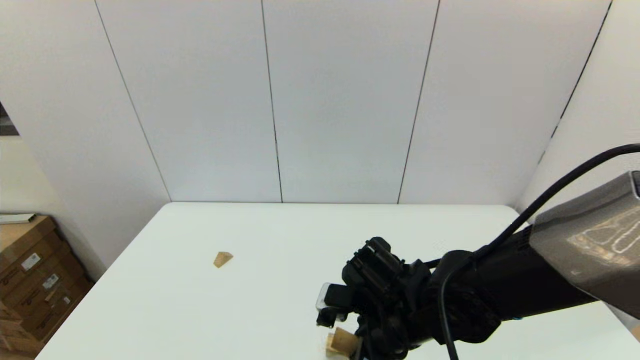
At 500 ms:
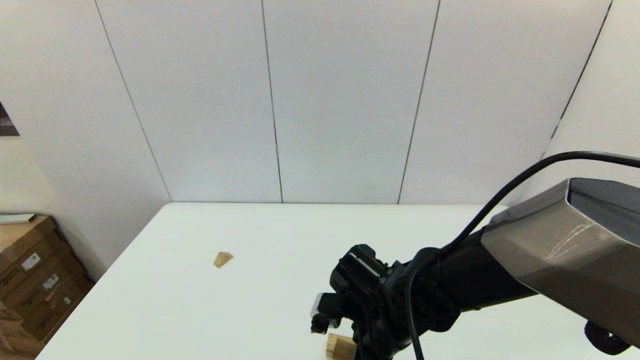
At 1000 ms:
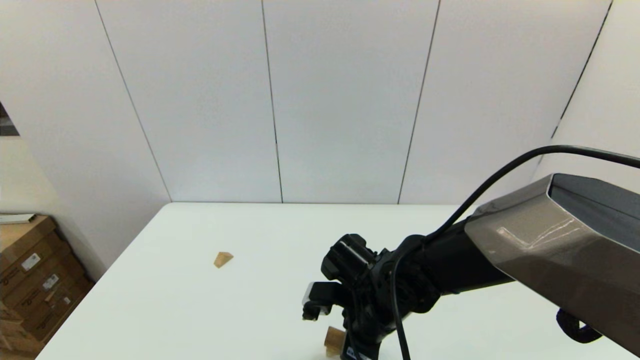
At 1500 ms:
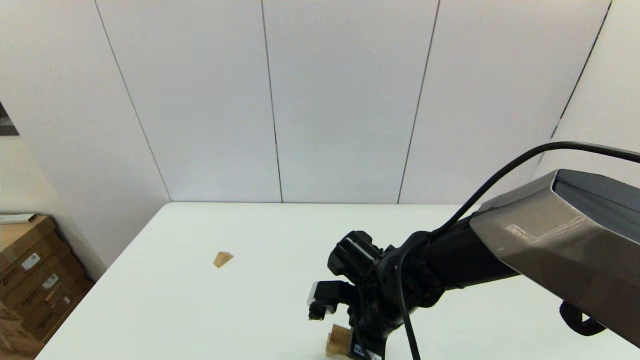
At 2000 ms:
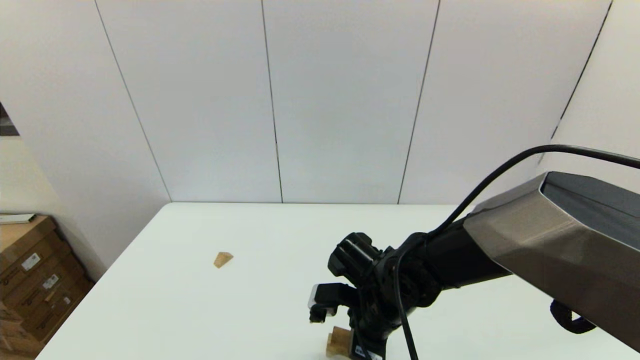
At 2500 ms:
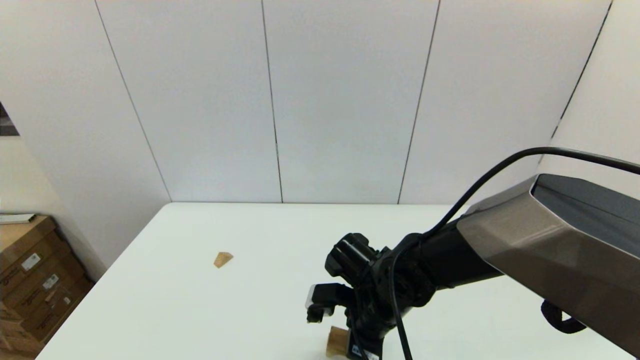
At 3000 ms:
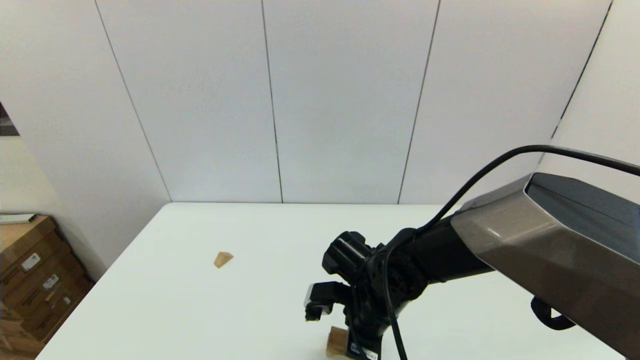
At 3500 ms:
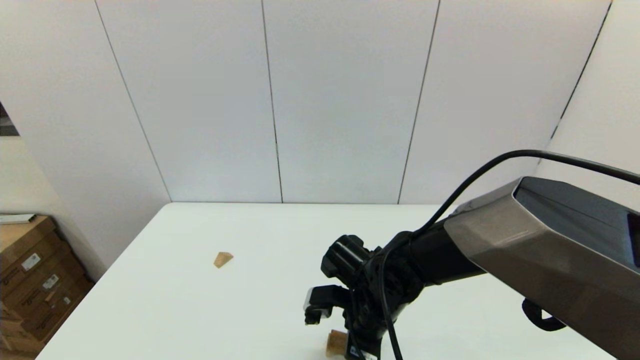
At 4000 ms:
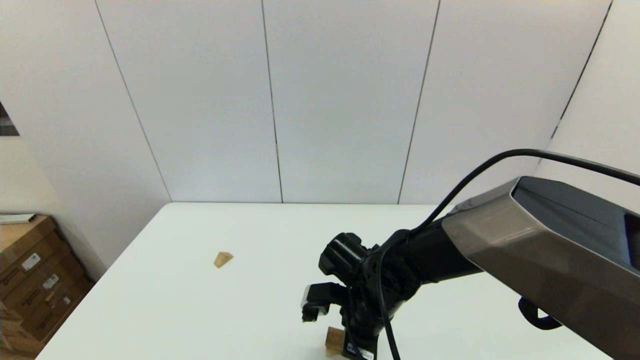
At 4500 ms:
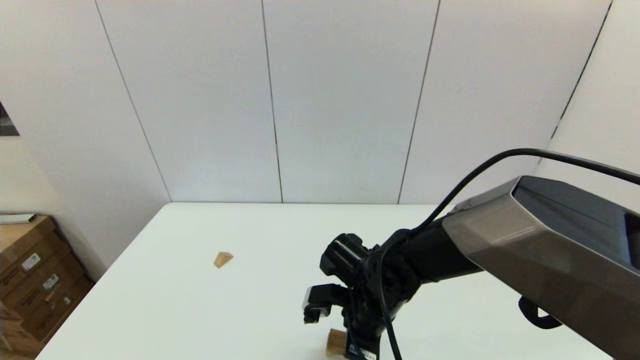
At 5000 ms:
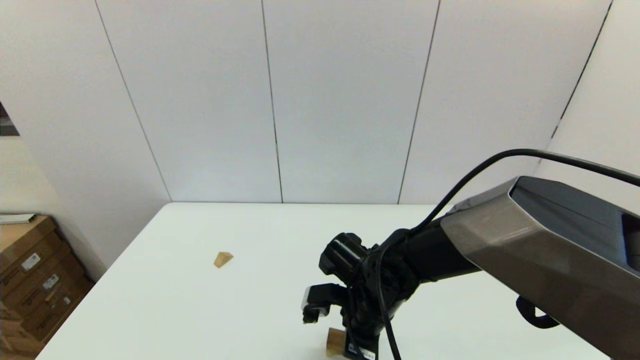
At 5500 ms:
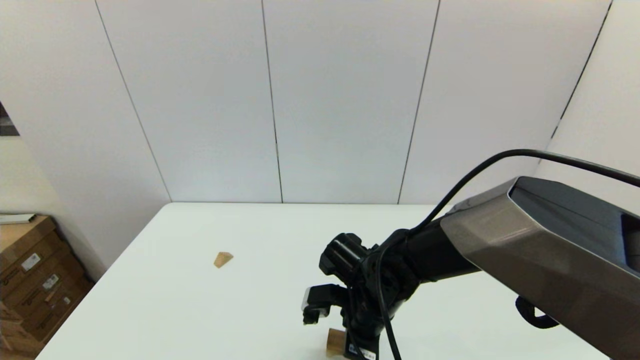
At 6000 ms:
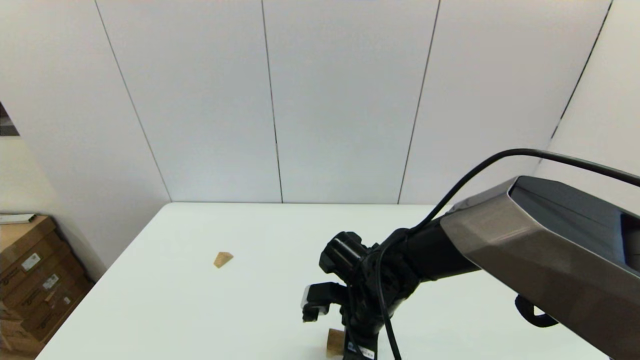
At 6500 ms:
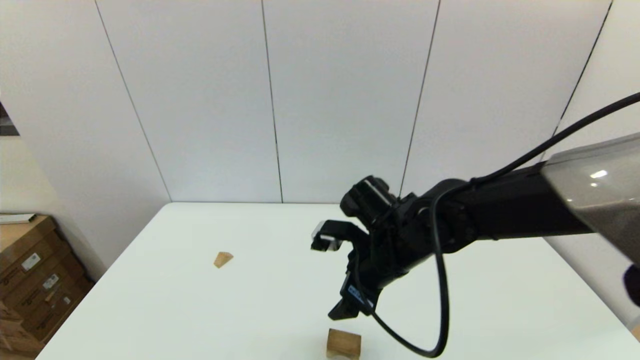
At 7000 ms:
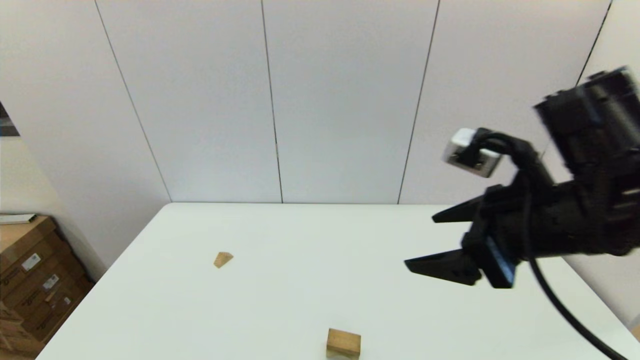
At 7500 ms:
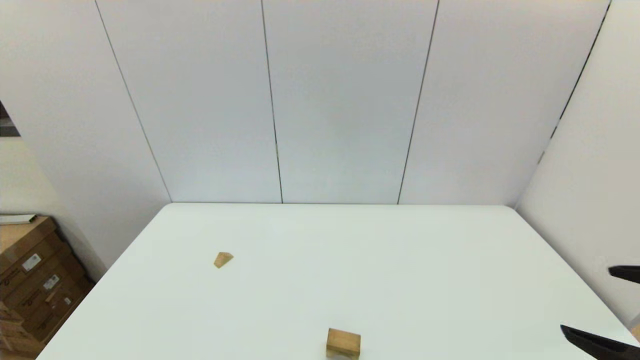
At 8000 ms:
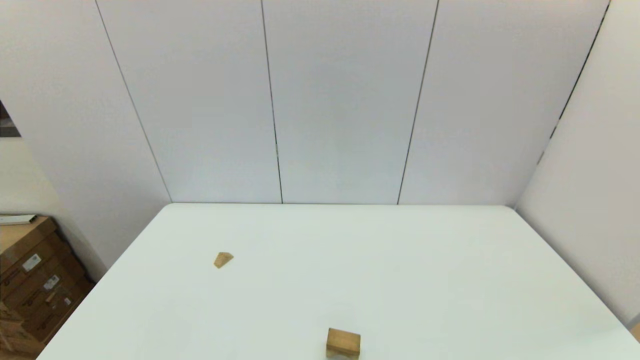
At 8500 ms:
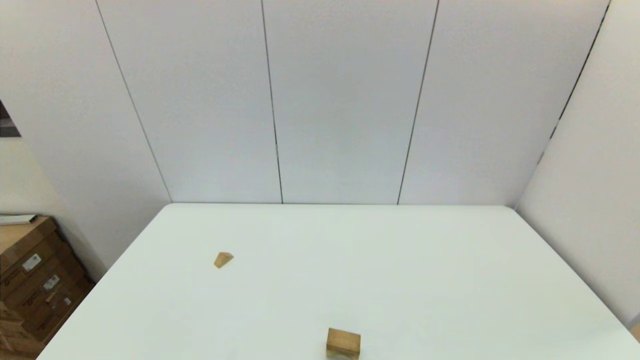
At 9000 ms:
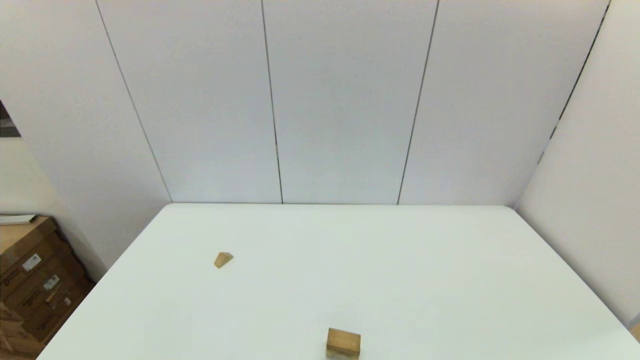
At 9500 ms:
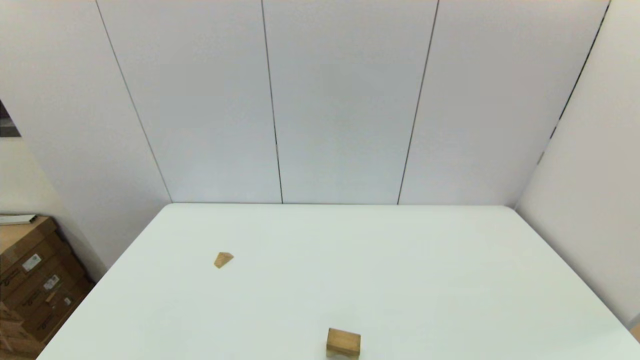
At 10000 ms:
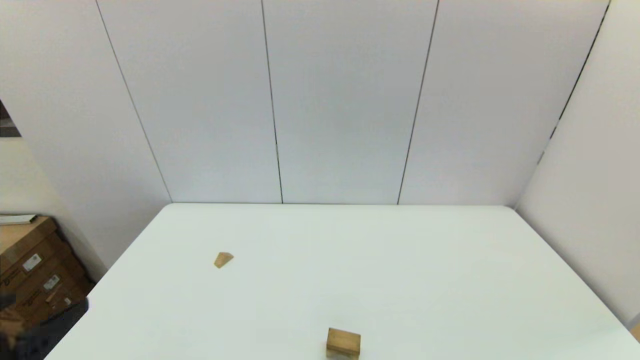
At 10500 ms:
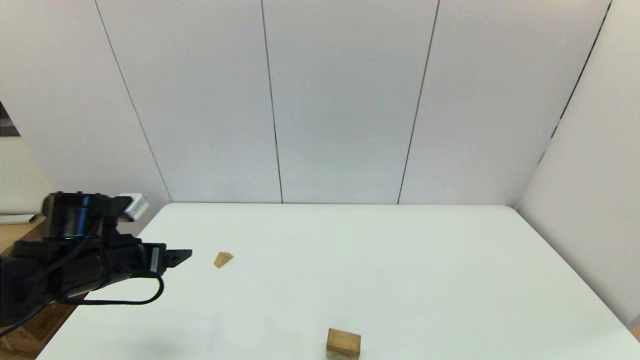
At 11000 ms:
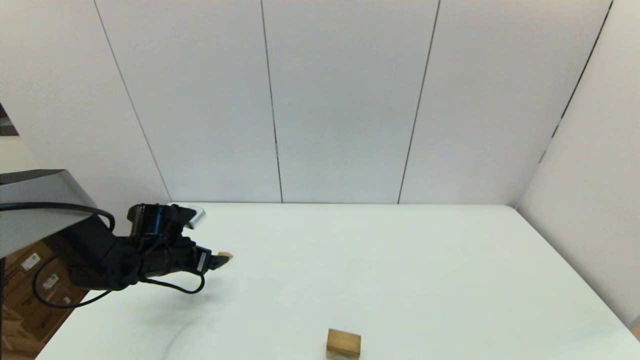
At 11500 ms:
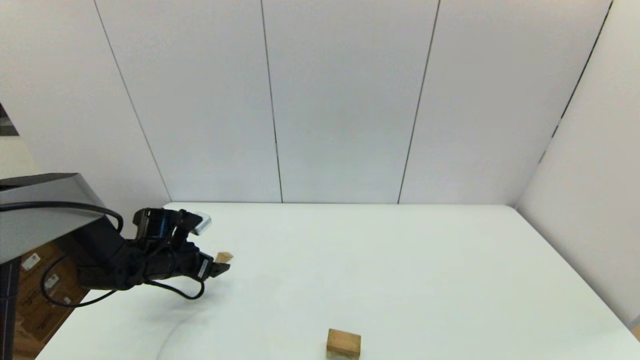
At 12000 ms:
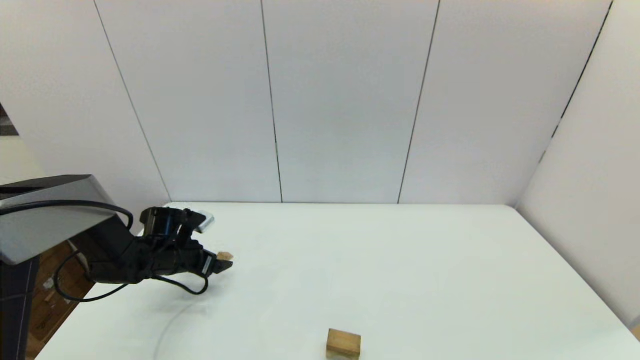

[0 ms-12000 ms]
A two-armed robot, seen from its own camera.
Task of the whole recording: place the arched building blocks in the center of the table, set up the rectangular building blocks, and then set up the triangular building blocks.
Step, 0 ms to 5500 ms: Place the box-shaped block onto the arch-shaped block with the right gripper.
0 ms to 4000 ms: The grippers move only a little.
4000 ms to 6000 ms: The right gripper opens.
6000 ms to 8000 ms: The right gripper travels backward, to the right and upward by some 40 cm, and opens its fingers.
8000 ms to 10000 ms: The left gripper travels upward and forward by some 15 cm.
10000 ms to 12000 ms: The left gripper shifts about 35 cm forward and downward.

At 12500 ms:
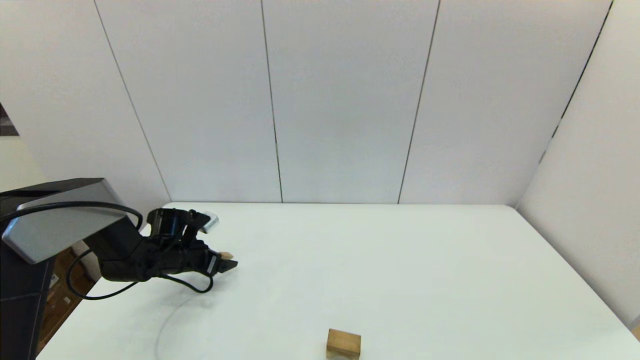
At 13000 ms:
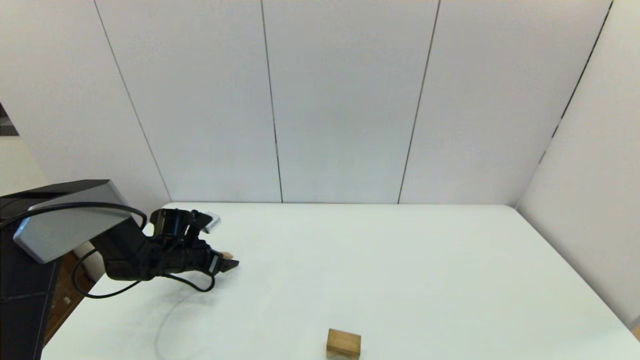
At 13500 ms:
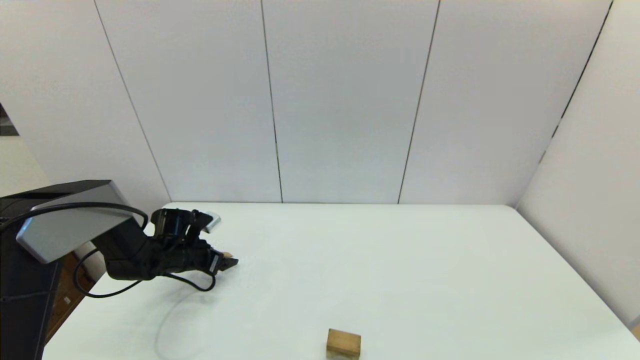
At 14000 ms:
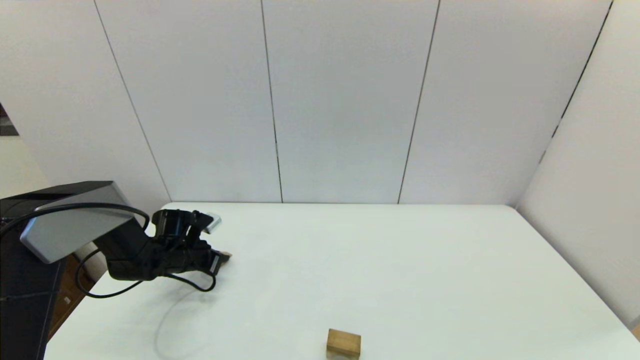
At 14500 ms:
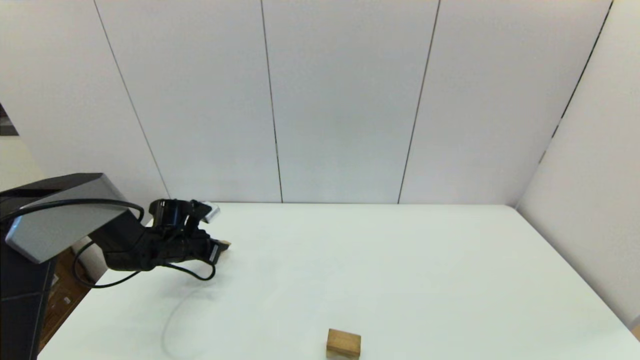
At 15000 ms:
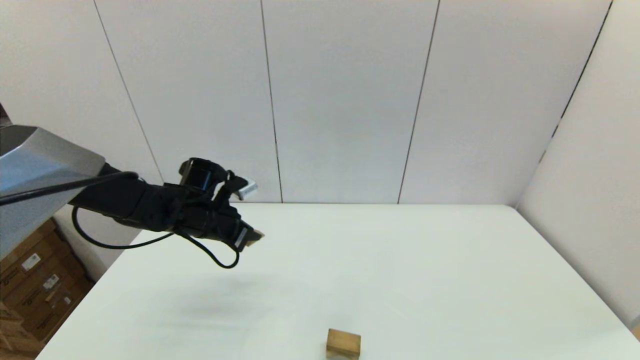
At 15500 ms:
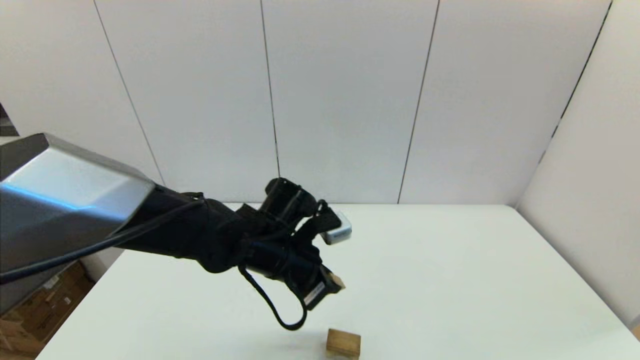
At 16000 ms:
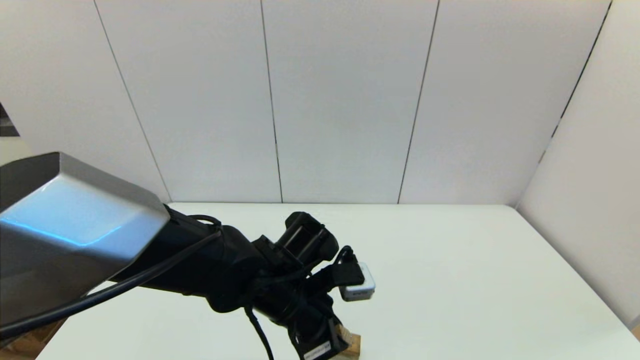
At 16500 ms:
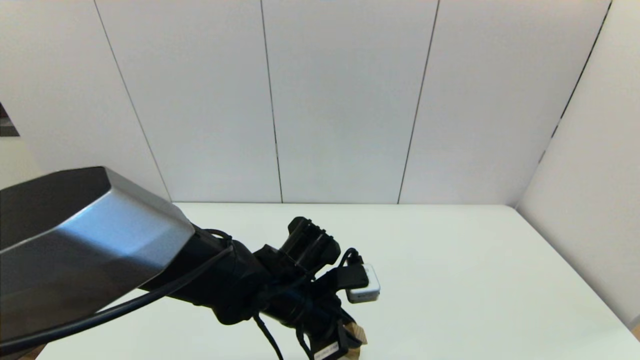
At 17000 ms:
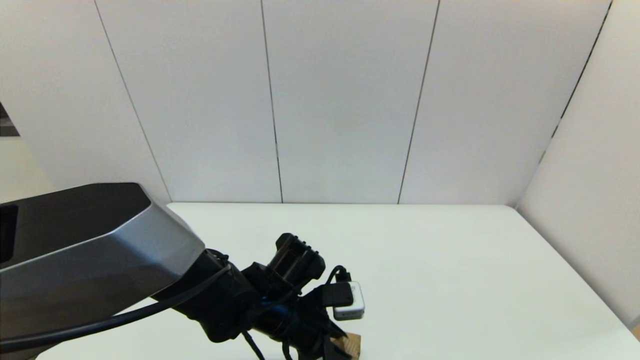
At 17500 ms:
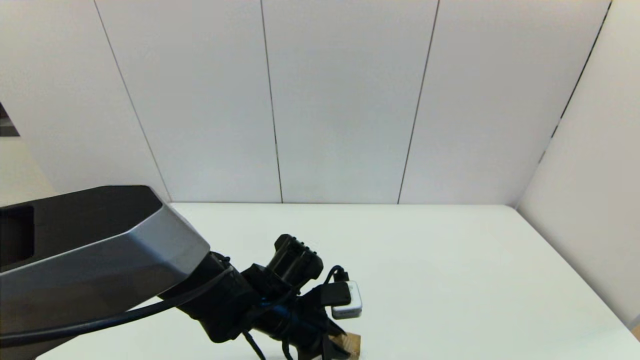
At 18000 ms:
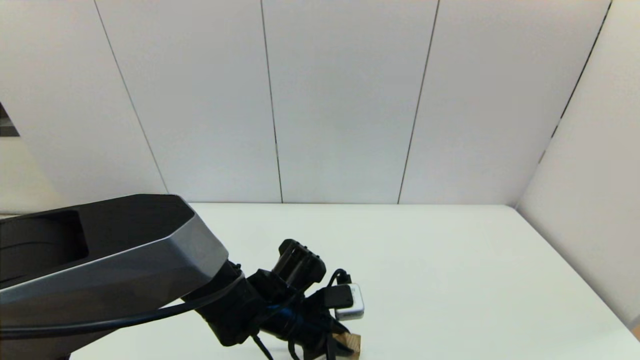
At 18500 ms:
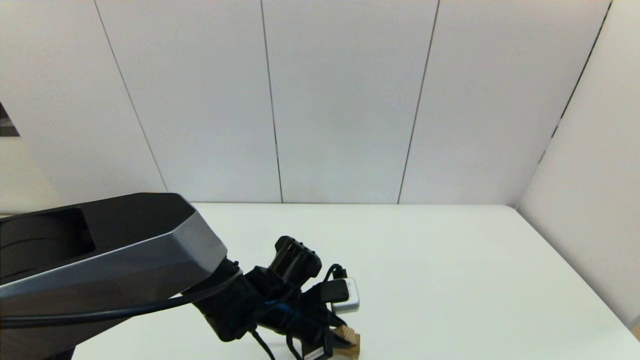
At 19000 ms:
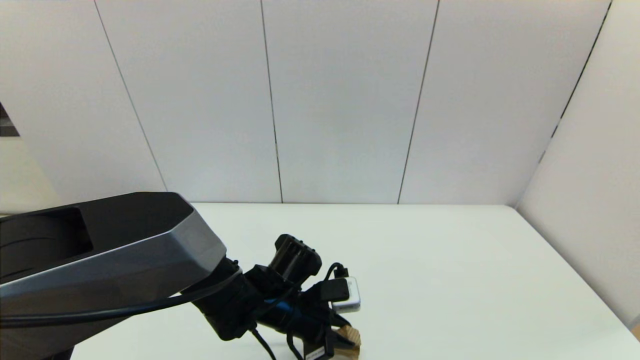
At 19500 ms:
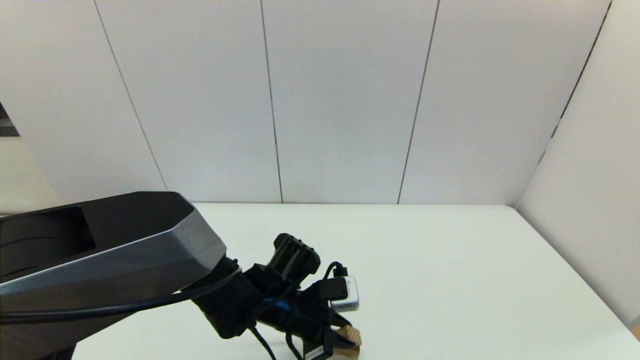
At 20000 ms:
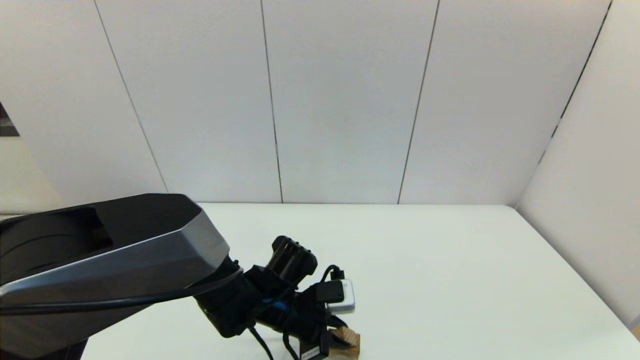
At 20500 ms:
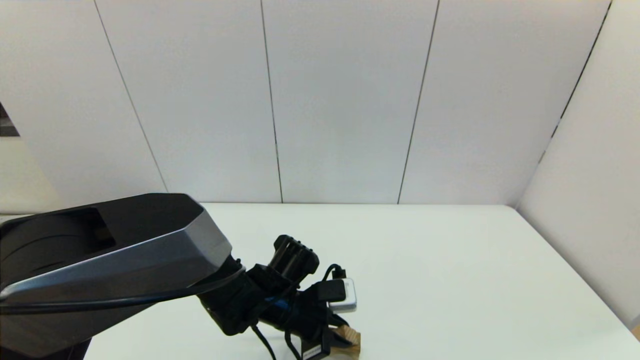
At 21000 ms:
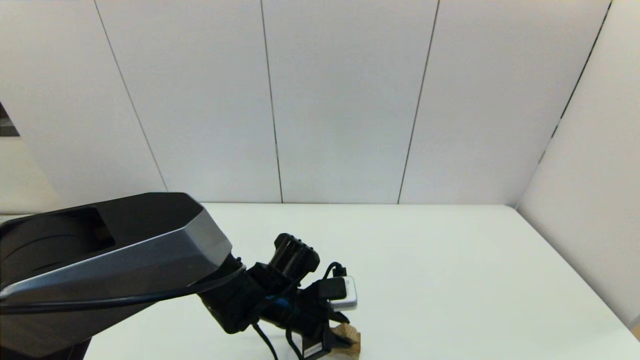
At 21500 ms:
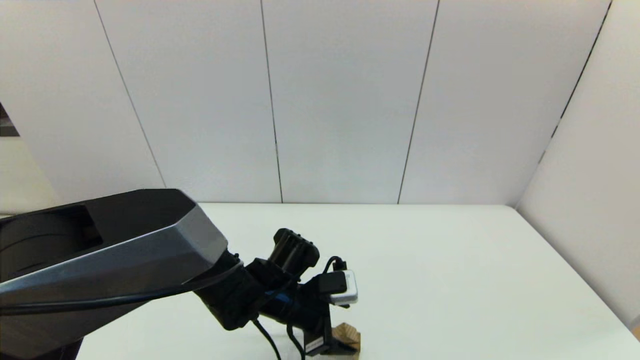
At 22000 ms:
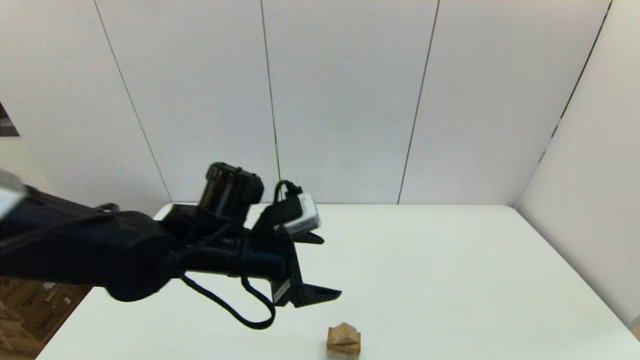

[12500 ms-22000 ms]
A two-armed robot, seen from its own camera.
Task of the whole recording: place the arched building blocks in the center of the table, set up the rectangular building blocks, and then set up the triangular building blocks.
12500 ms to 14500 ms: The left gripper closes its fingers.
14500 ms to 16500 ms: The left gripper goes approximately 30 cm to the right and backward.
16500 ms to 18000 ms: The left gripper is displaced downward by some 5 cm.
18000 ms to 20000 ms: There are only small adjustments of the grippers.
20000 ms to 22000 ms: The left gripper goes roughly 15 cm upward, and opens up.
